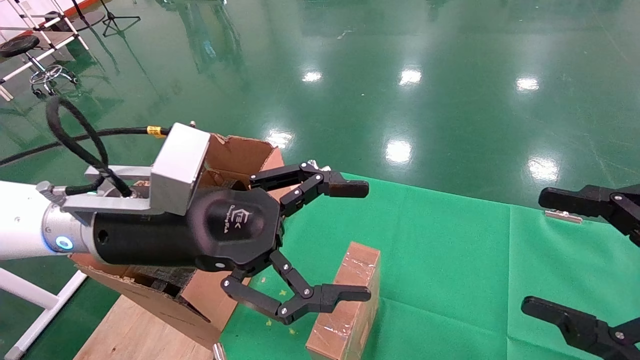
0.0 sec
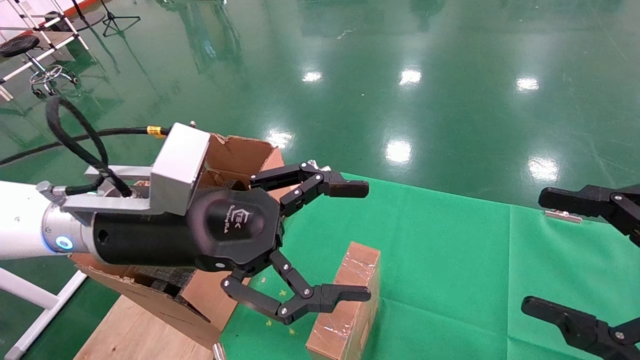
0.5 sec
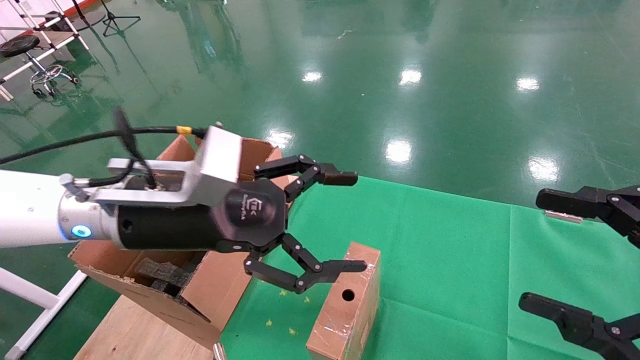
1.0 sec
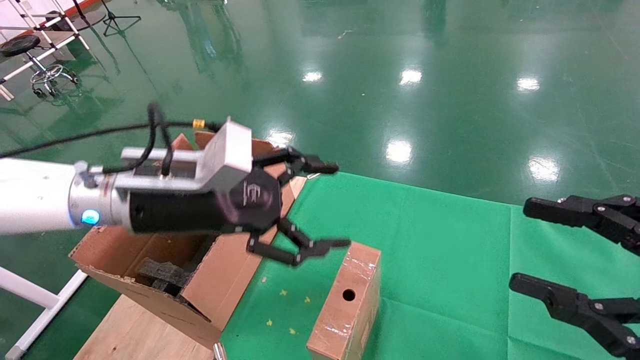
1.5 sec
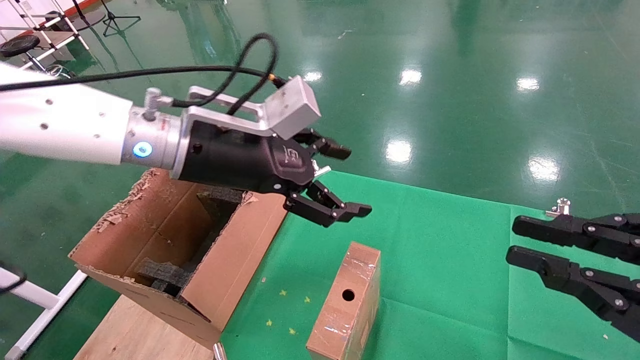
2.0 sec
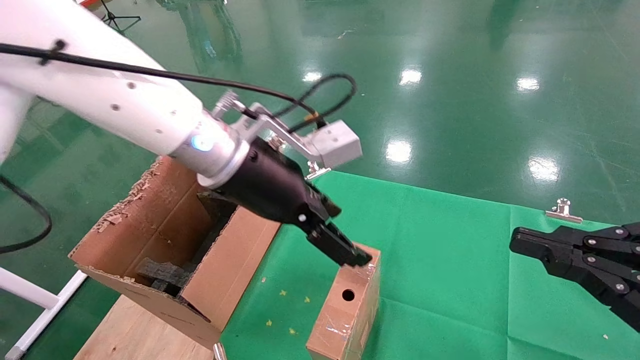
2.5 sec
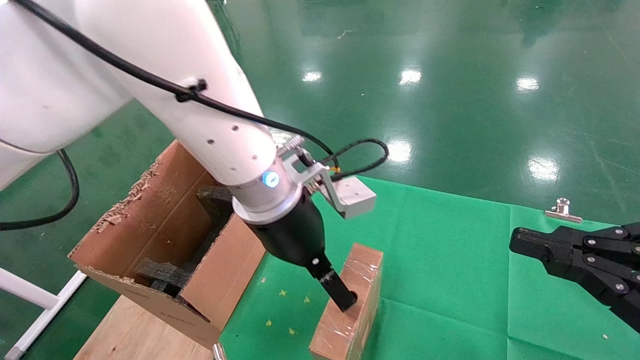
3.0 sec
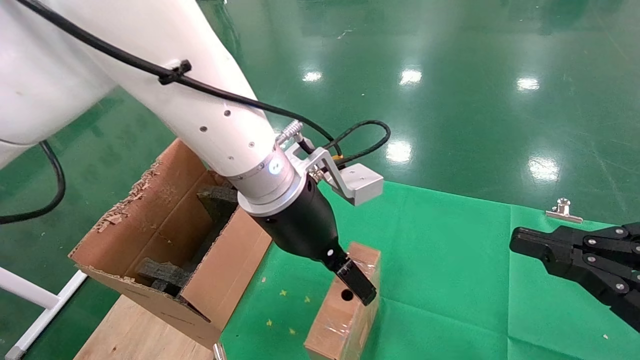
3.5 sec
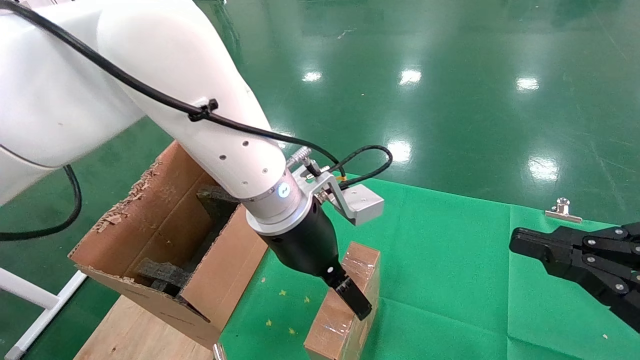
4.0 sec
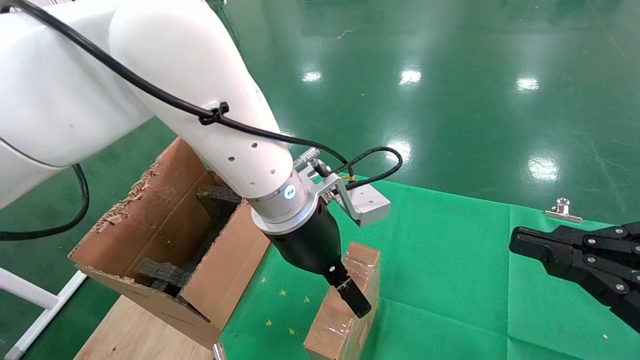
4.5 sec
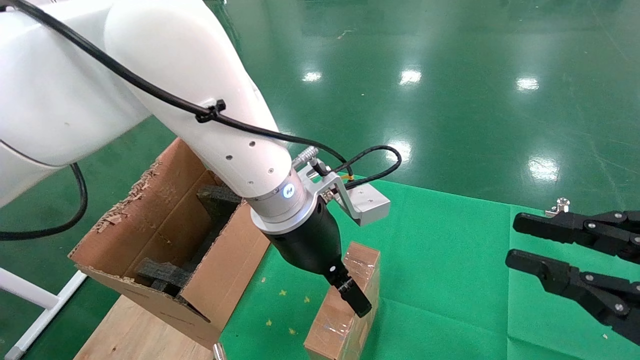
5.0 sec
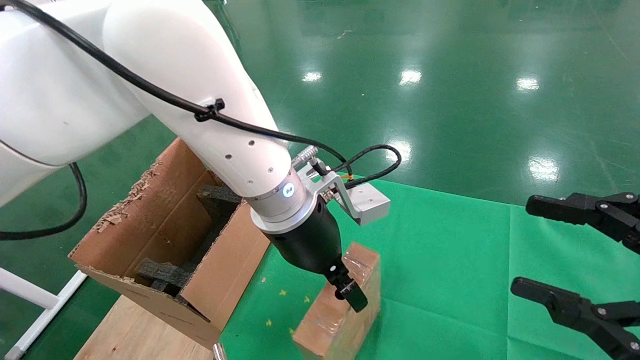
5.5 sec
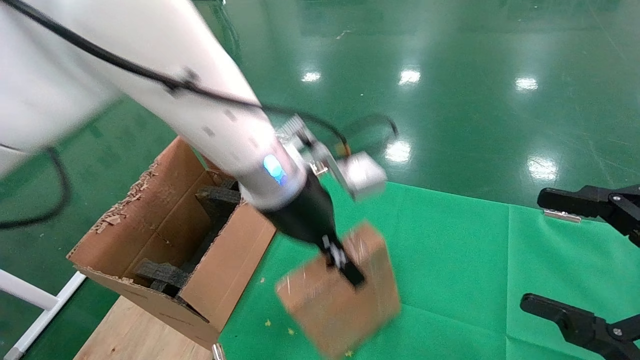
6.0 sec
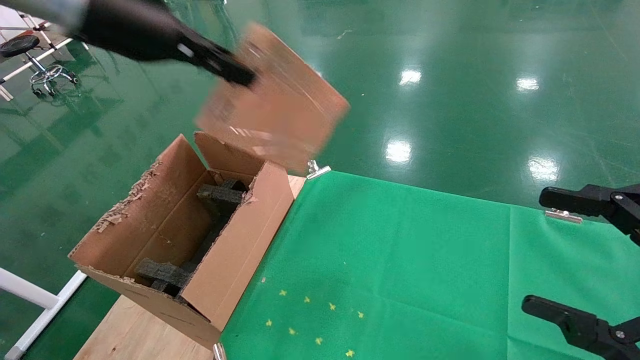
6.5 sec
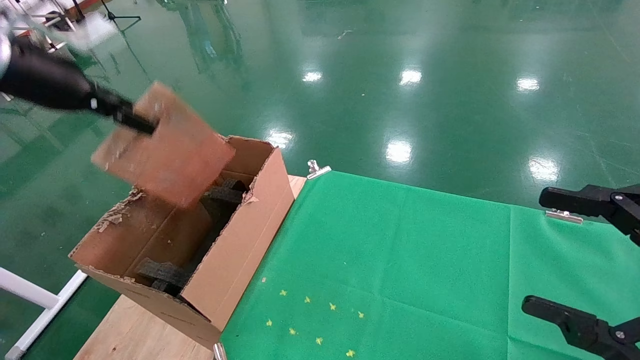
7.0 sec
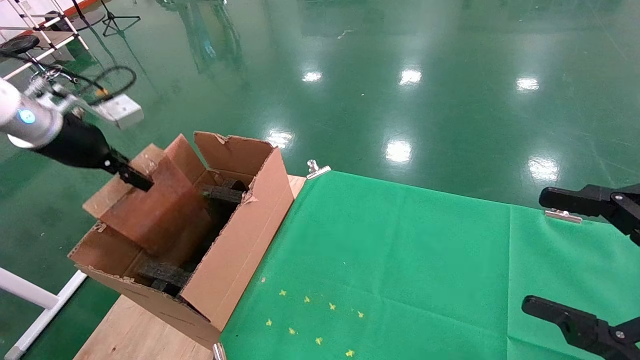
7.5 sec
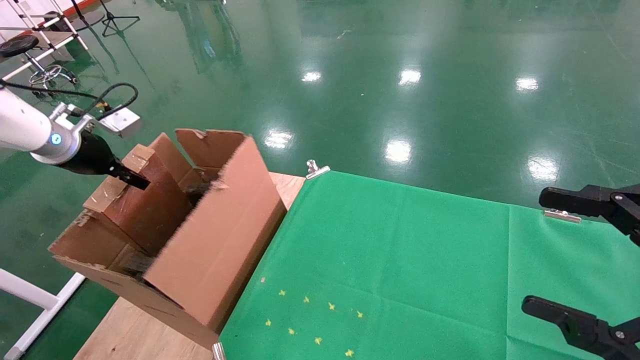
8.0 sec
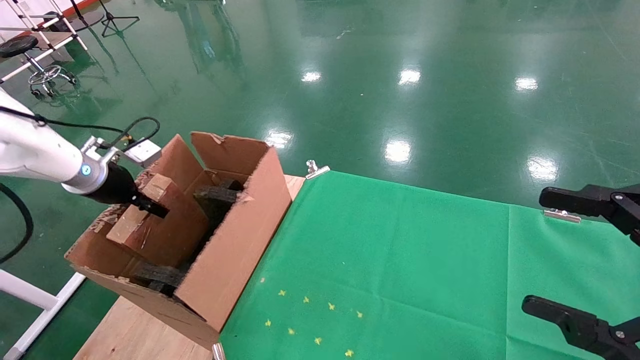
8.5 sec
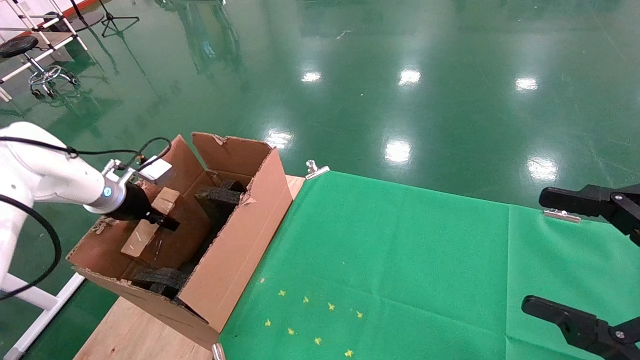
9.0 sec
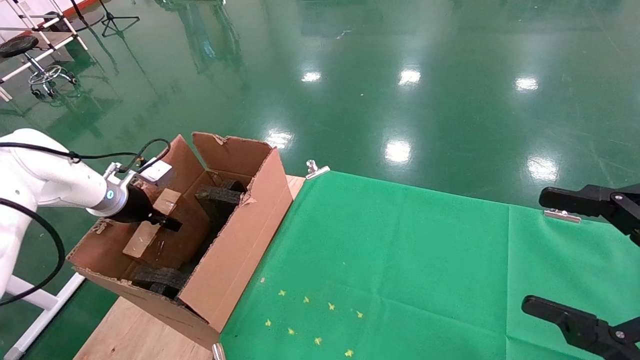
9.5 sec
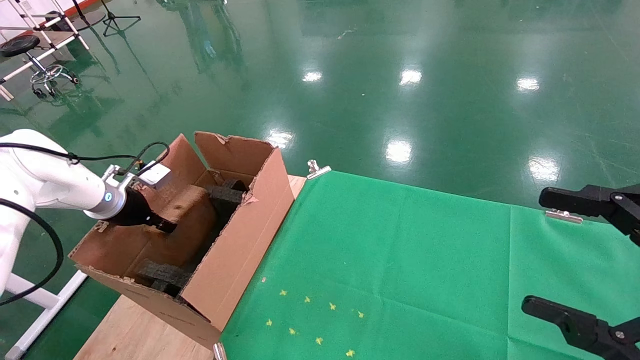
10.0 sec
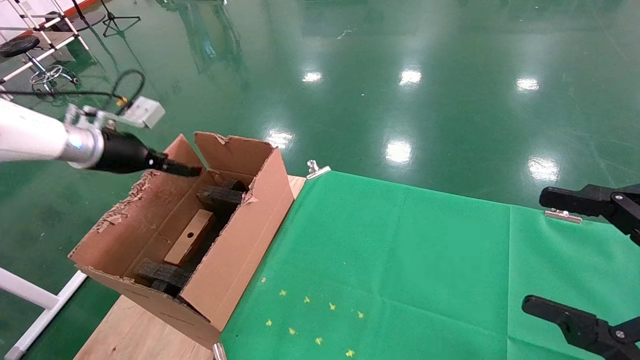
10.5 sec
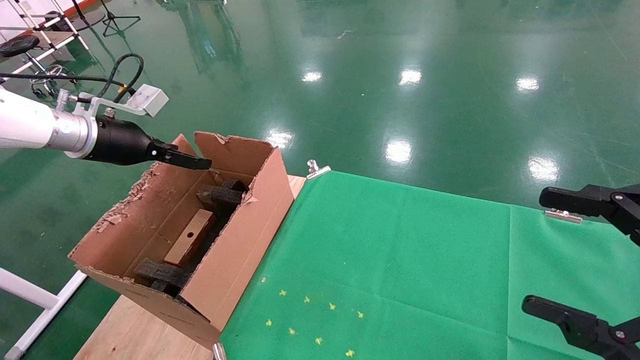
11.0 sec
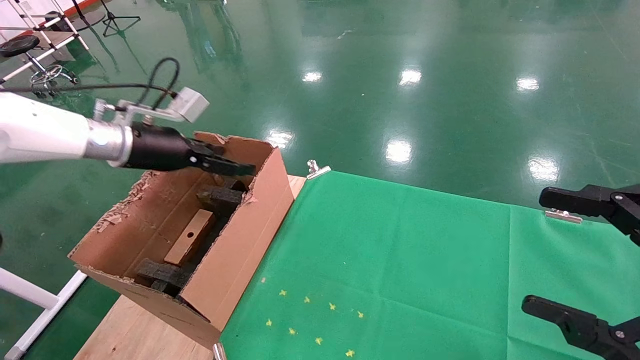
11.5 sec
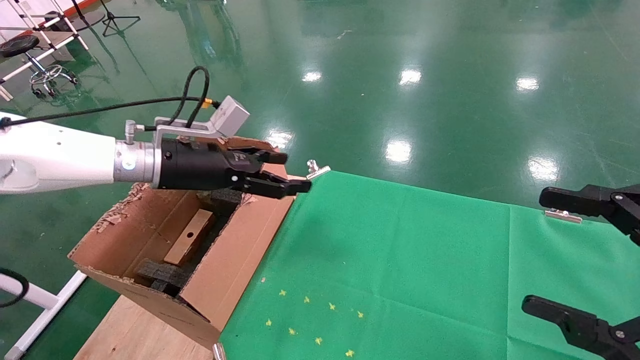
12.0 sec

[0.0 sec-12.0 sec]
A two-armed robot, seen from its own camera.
Task of the whole recording: using a robotic arm to pick up a cardboard box and palace it the carton.
Step, 1.0 sec to 5.5 sec: Pick up the mouse and the power cord paper box.
Step, 6.0 sec to 10.5 sec: Place the mouse and the power cord paper box into the container.
0.0 sec to 2.0 sec: The right gripper closes. Meanwhile the left gripper travels forward and upward by approximately 10 cm.
2.0 sec to 4.0 sec: The left gripper is displaced to the right and downward by about 10 cm.
4.0 sec to 6.0 sec: The left gripper moves approximately 5 cm, and closes up; the right gripper opens up.
6.0 sec to 8.0 sec: The left gripper heads to the left, covering some 40 cm.
8.0 sec to 10.0 sec: The left gripper heads downward, covering some 10 cm.
10.0 sec to 12.0 sec: The left gripper goes some 20 cm to the right and upward, and opens up.

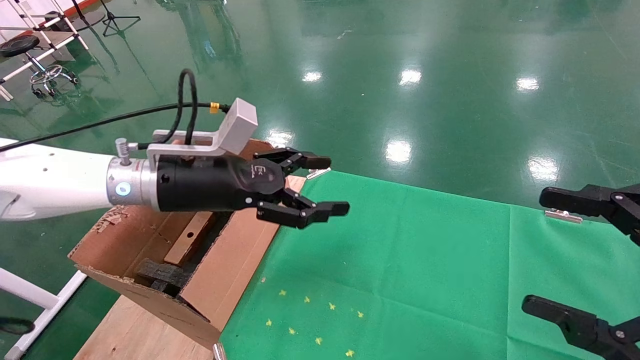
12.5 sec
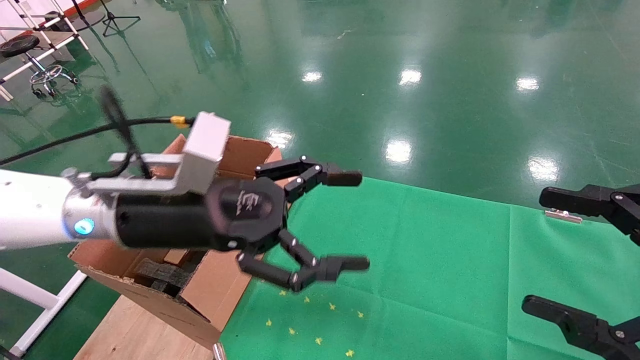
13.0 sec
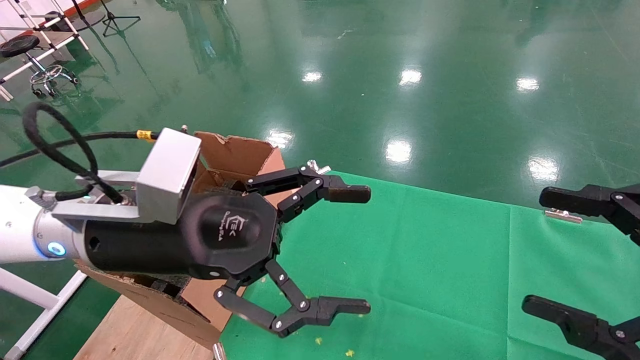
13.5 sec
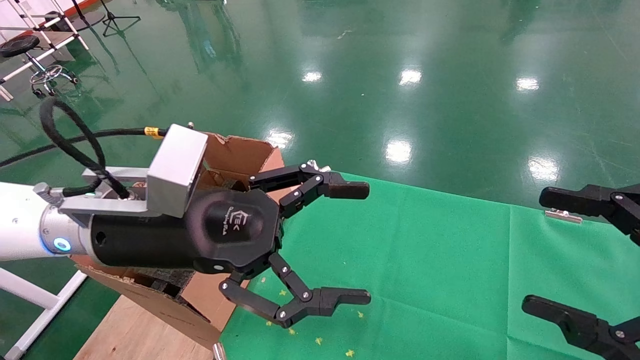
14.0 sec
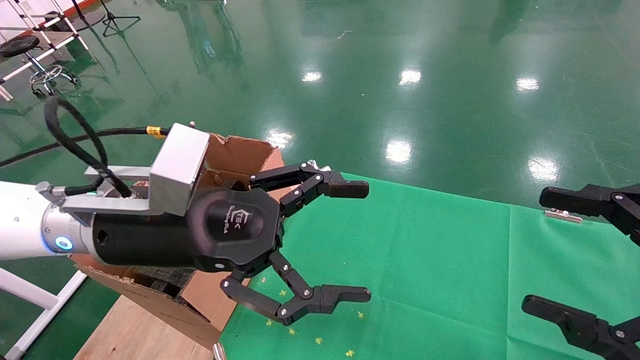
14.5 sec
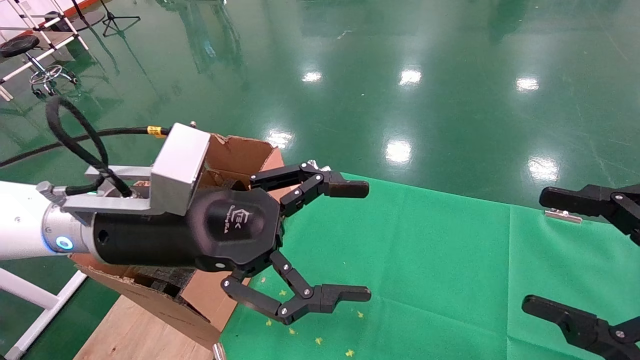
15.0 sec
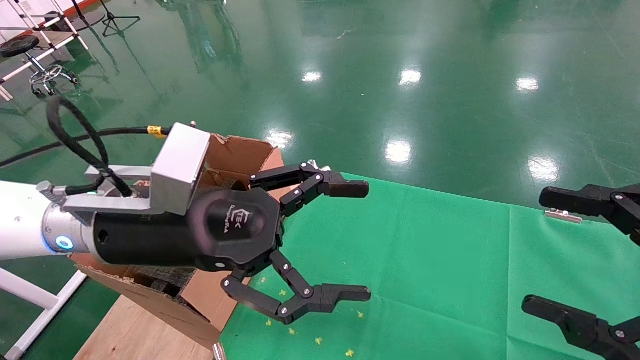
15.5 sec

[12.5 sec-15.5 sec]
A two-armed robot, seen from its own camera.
Task of the whole recording: using a robotic arm to pick up a cardboard box and palace it the carton.
12.5 sec to 14.0 sec: The left gripper moves backward, roughly 10 cm.
14.0 sec to 15.5 sec: Both grippers stay about where they are.
